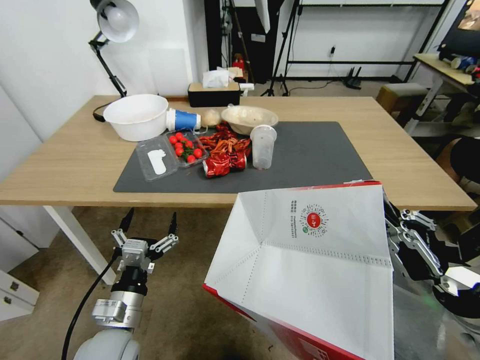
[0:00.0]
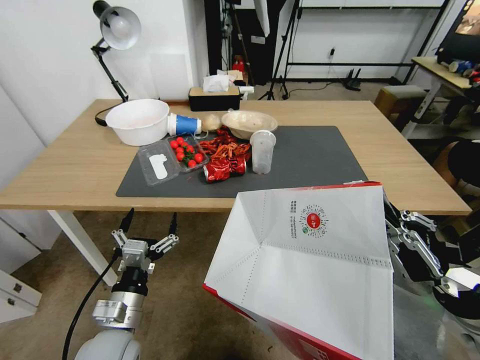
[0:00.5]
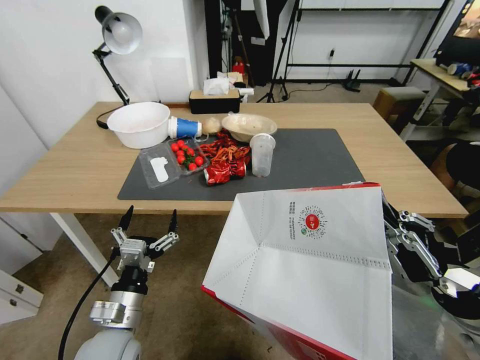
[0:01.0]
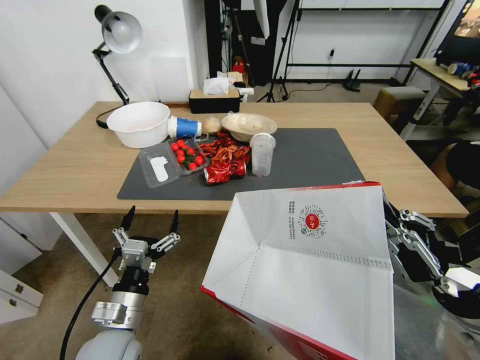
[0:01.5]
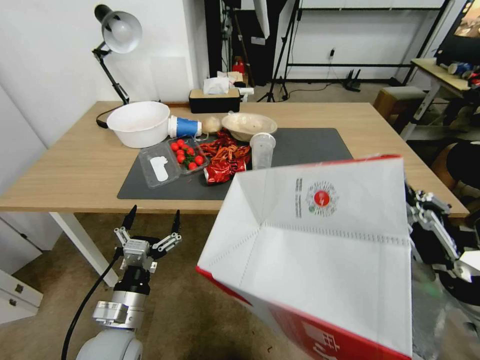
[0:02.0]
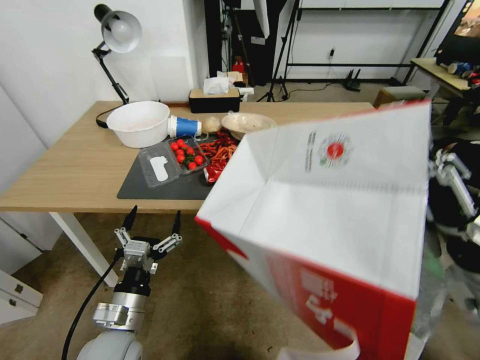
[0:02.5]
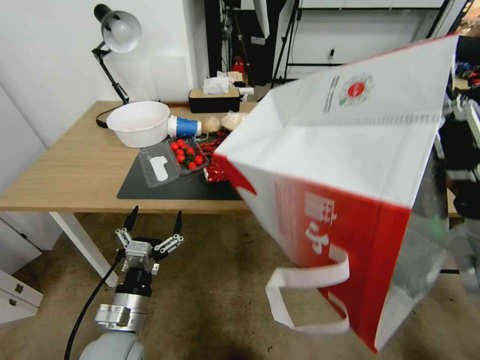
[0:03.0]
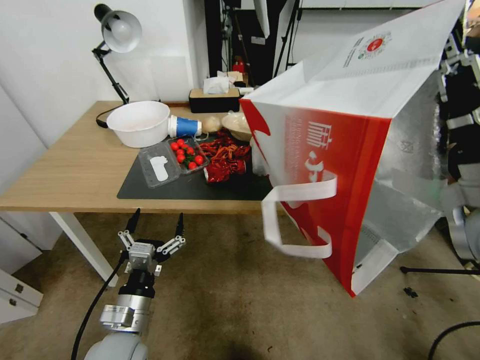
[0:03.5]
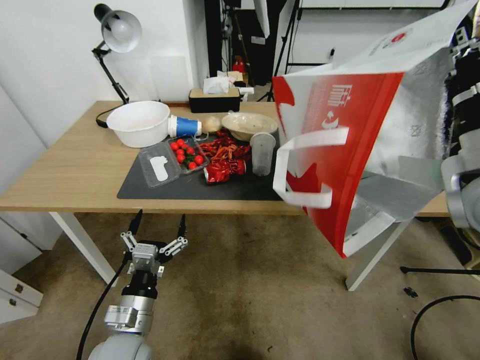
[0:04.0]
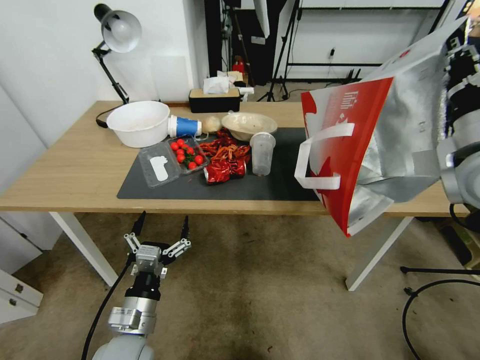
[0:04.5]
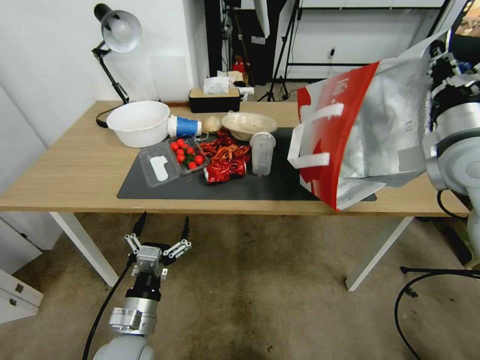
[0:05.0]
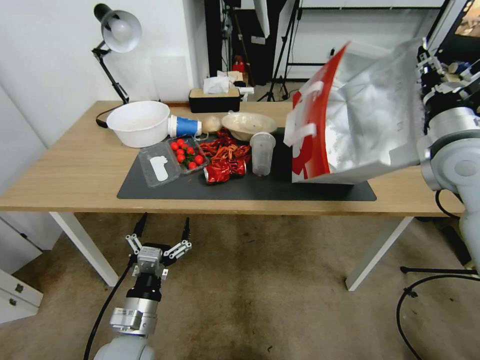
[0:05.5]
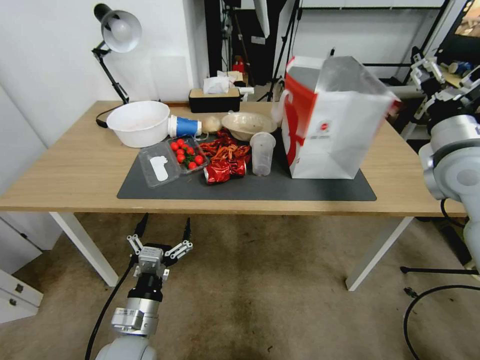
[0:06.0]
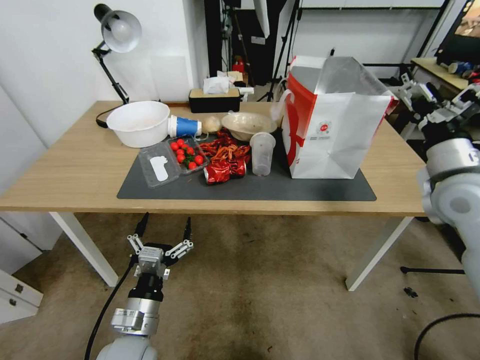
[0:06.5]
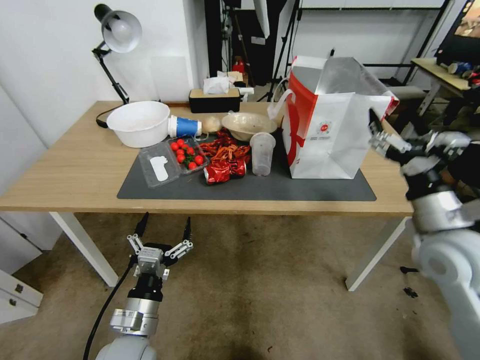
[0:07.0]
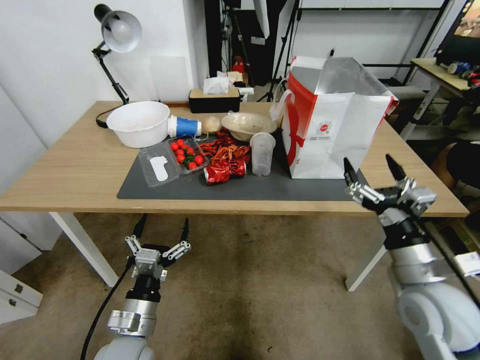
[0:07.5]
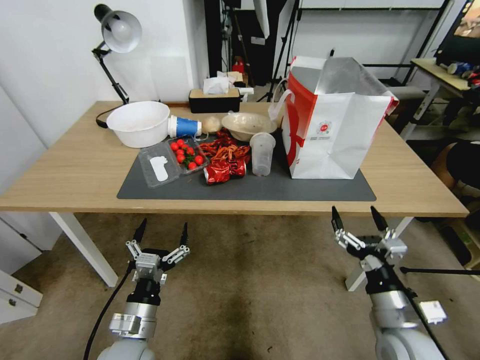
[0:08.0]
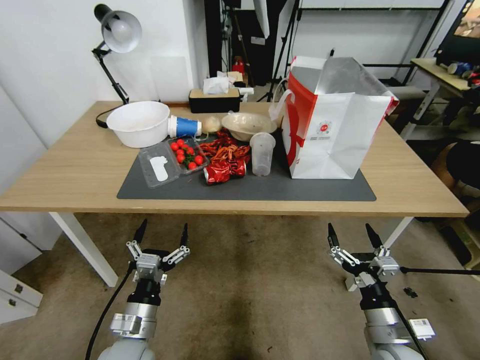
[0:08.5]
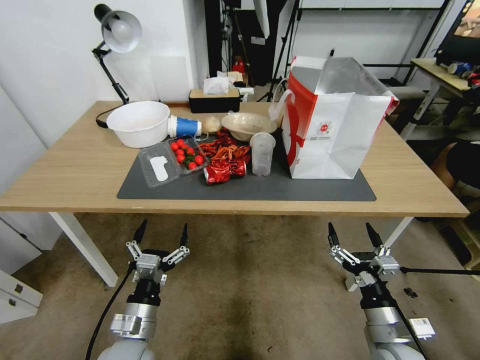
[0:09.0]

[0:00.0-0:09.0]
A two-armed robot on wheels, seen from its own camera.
Task of the whole recording: Pick up the food delivery bag from the floor and place it on the table.
0:02.0 to 0:04.5: The right gripper heads forward and upward, covering about 20 cm.
0:04.5 to 0:07.0: The right gripper heads downward and backward, covering roughly 10 cm, and opens.
0:07.0 to 0:09.0: The right gripper shifts some 25 cm downward and backward.

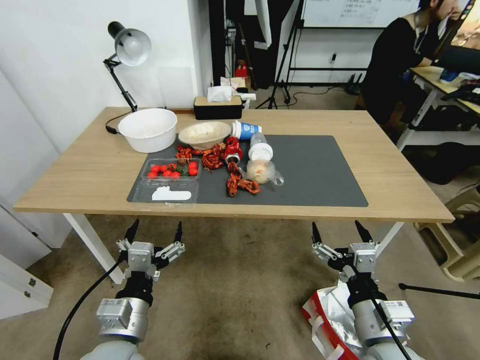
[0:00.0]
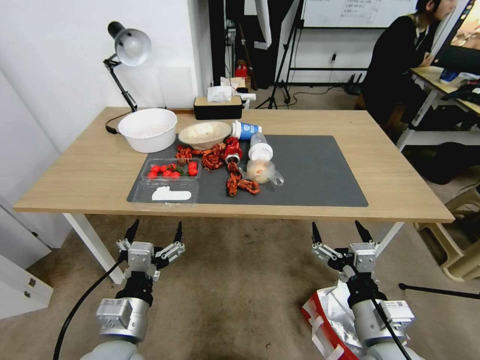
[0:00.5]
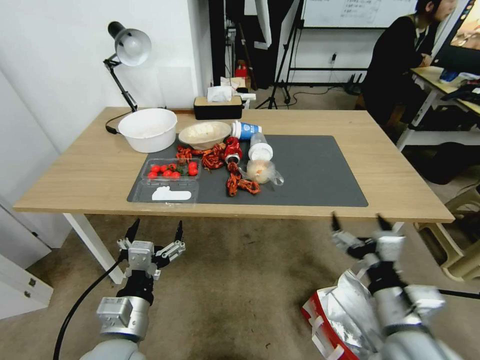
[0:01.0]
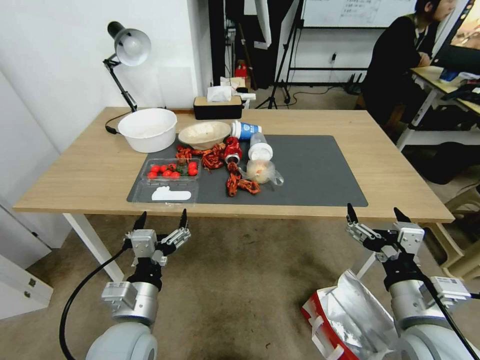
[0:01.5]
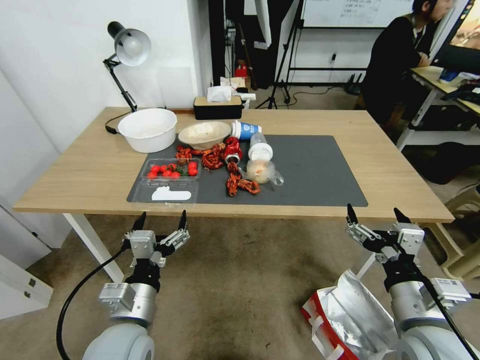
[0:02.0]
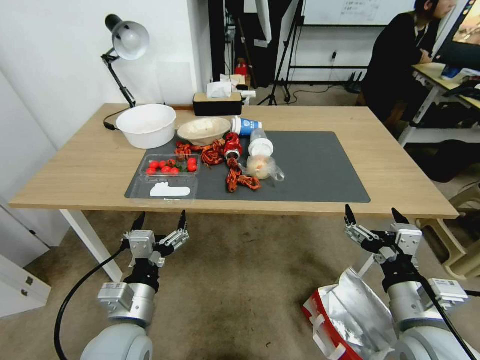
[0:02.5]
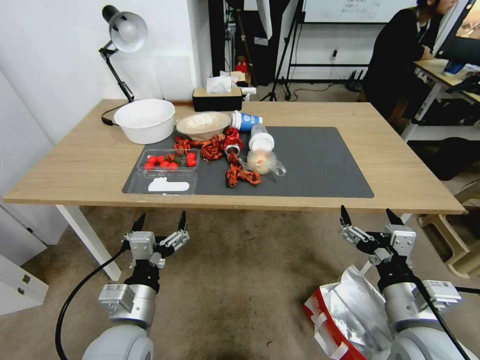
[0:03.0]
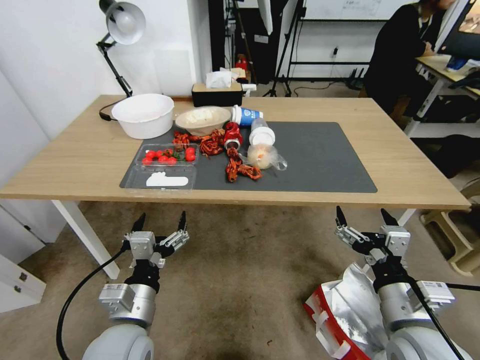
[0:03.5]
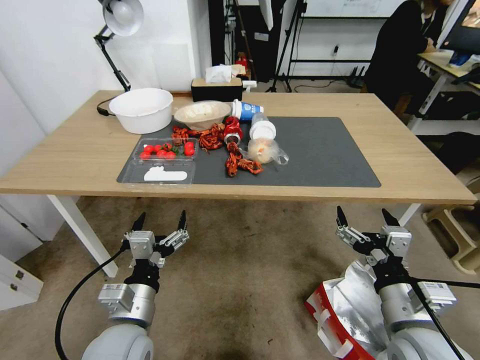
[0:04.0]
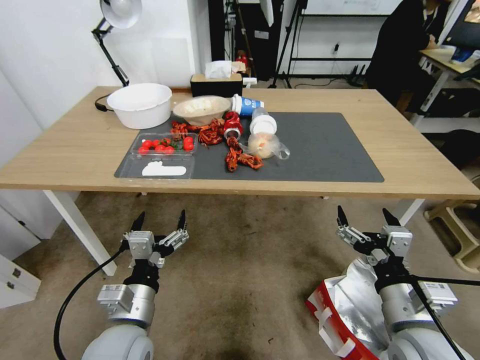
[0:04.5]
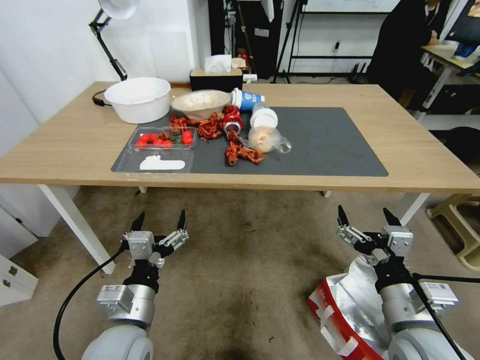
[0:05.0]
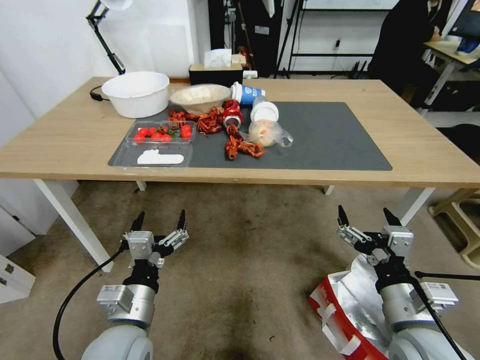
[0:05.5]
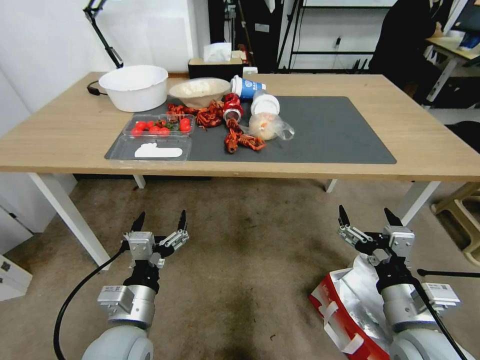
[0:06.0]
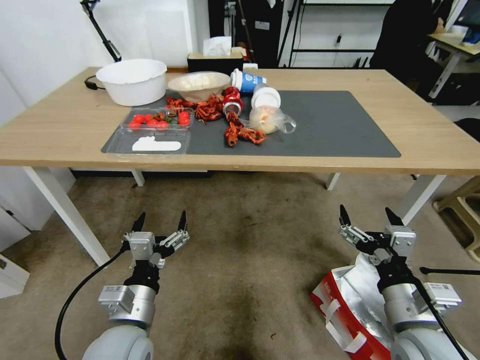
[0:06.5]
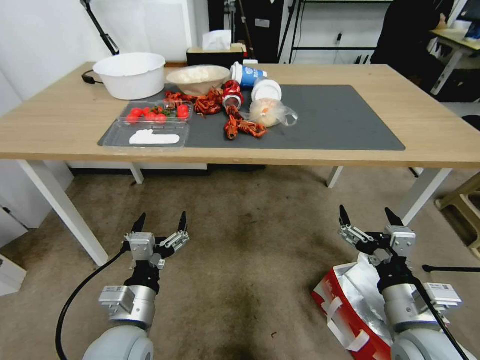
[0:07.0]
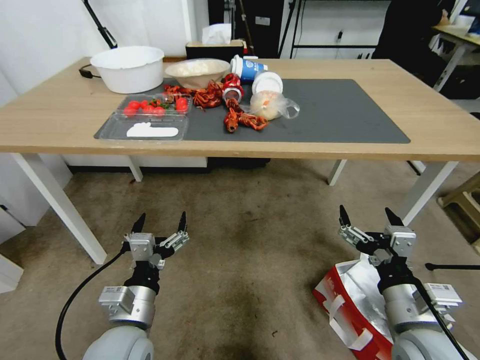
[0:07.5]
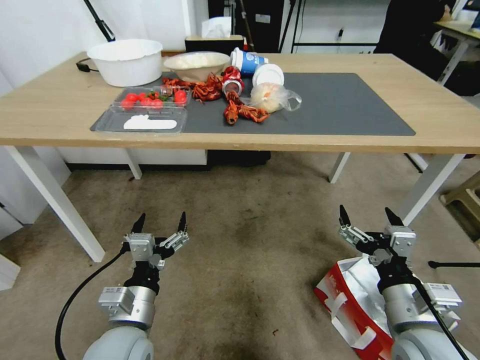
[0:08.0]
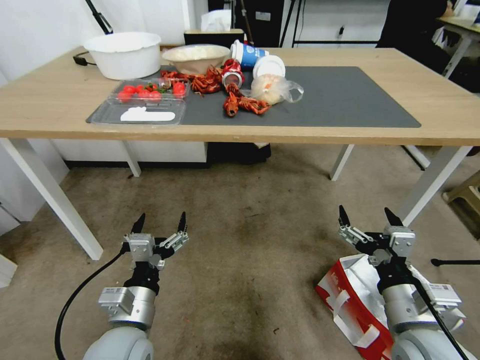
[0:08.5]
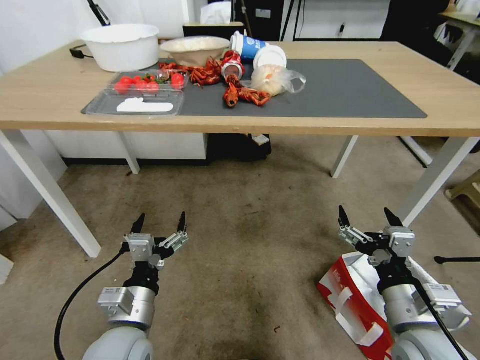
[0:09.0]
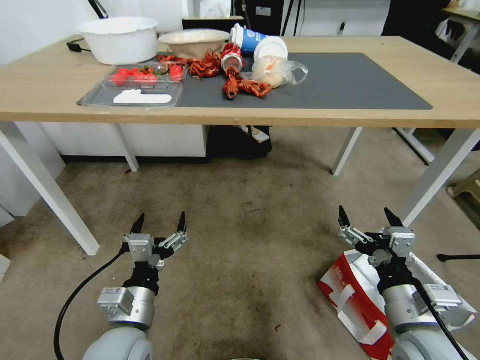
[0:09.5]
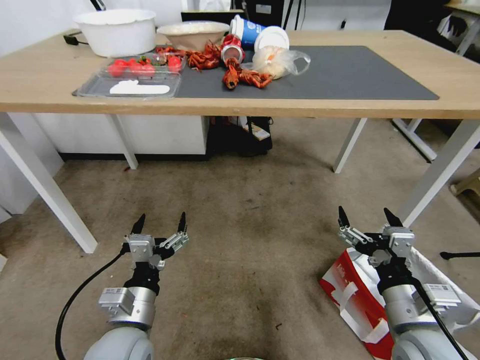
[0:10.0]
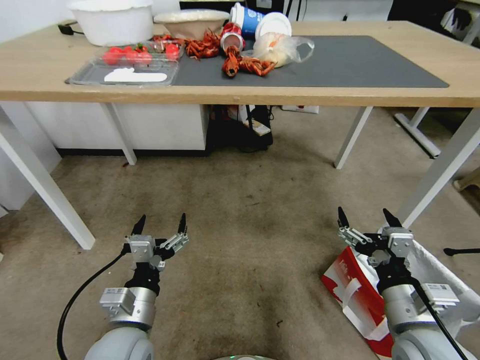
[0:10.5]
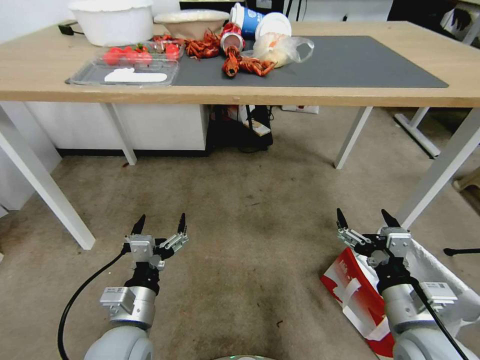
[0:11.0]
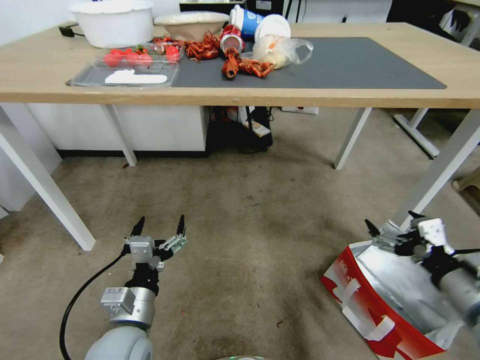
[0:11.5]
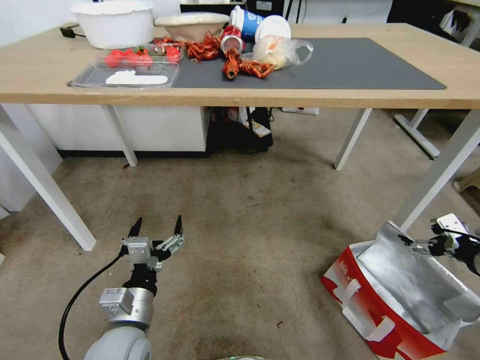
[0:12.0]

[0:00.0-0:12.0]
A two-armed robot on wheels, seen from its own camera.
Task of the whole recording: Pick up the food delivery bag from the floor and place it on the table.
0:10.0 to 0:12.0: The right gripper goes about 20 cm to the right.

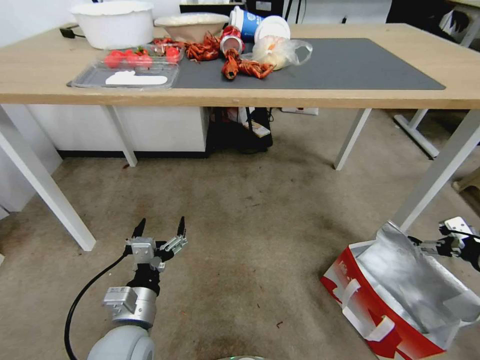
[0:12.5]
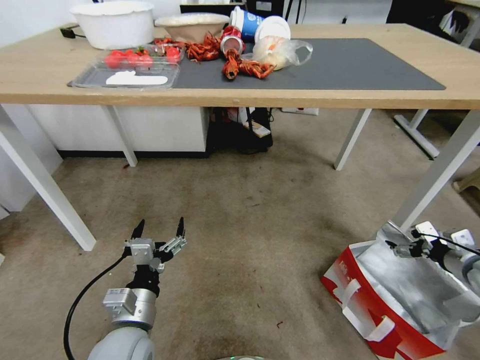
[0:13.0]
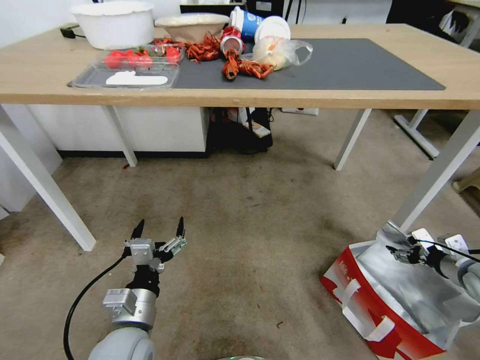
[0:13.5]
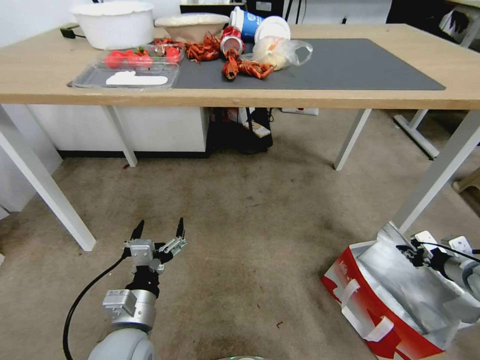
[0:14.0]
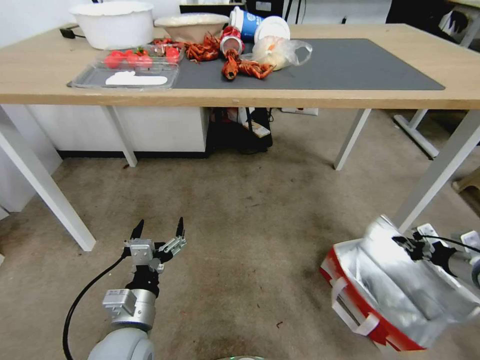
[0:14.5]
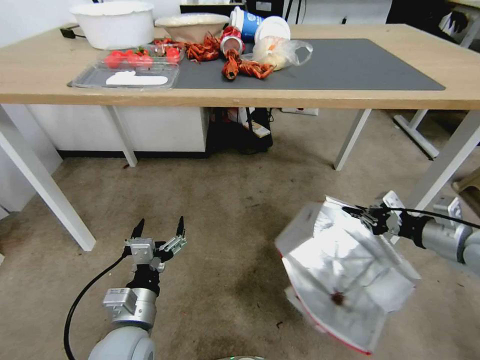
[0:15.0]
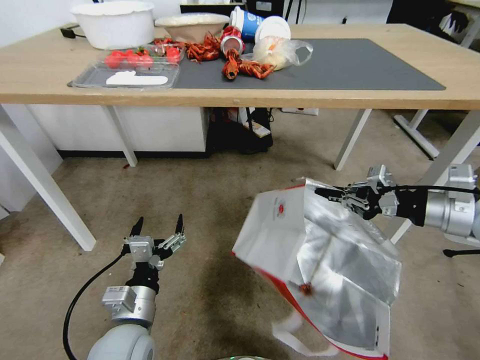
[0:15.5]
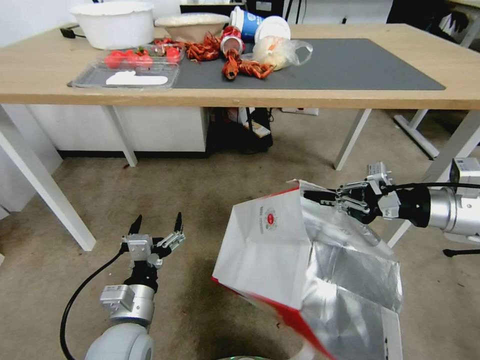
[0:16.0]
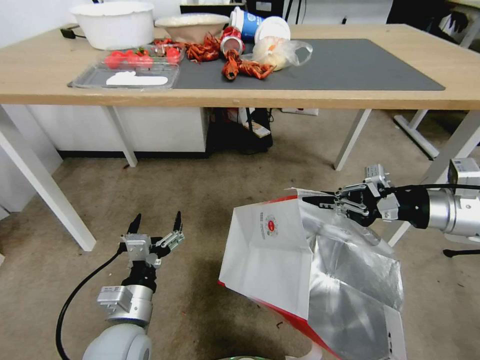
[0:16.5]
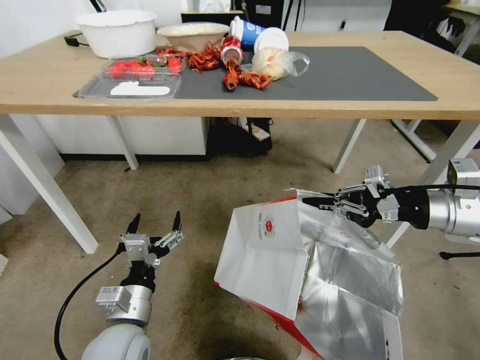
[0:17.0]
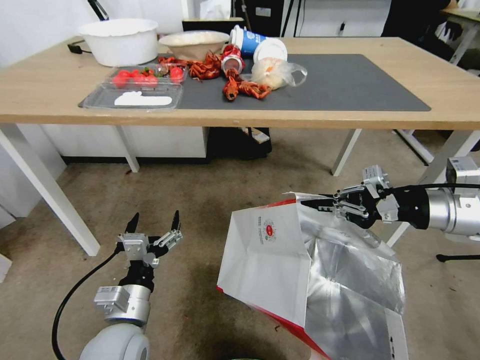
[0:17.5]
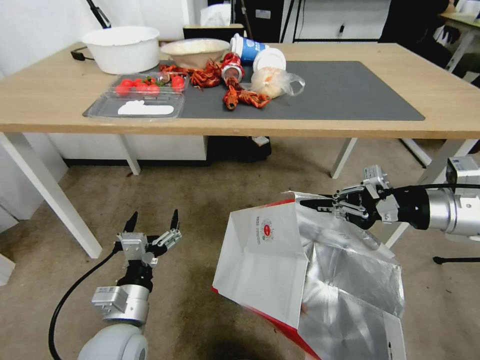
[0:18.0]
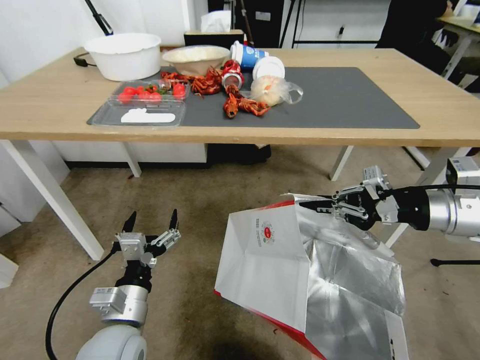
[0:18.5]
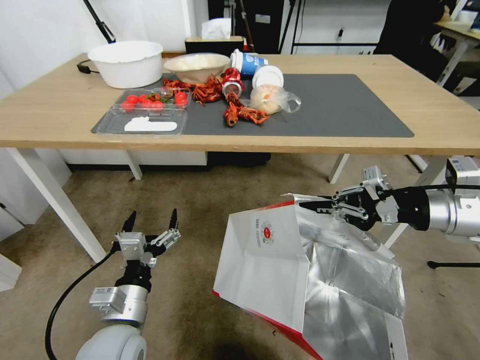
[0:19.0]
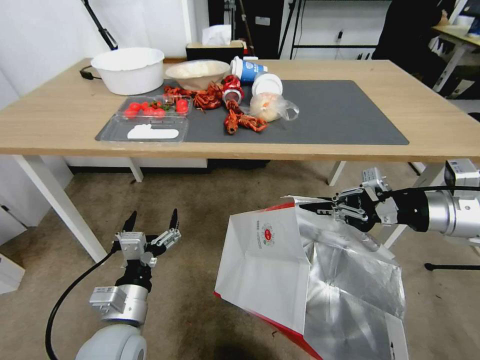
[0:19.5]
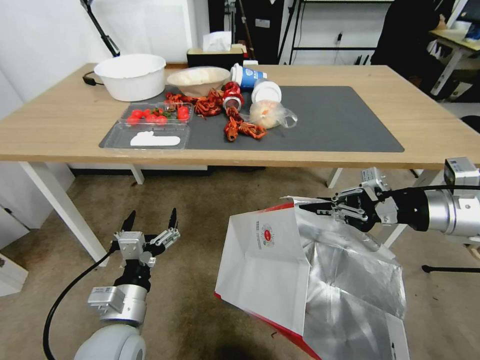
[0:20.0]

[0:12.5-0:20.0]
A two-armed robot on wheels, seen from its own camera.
Task of the whole recording: Pick up the food delivery bag from the floor and place it on the table.
0:12.5 to 0:14.5: The right gripper moves downward, roughly 5 cm, and closes its fingers.
0:14.5 to 0:16.5: The right gripper shifts some 25 cm upward and to the left.
